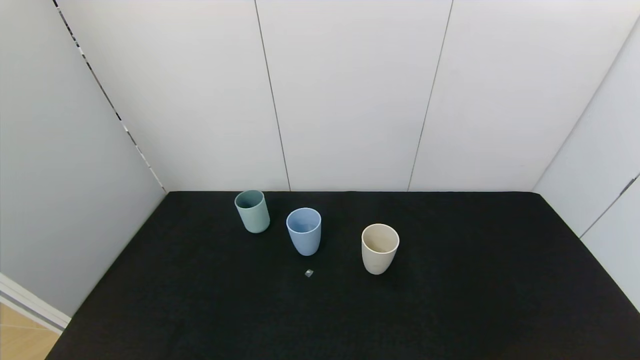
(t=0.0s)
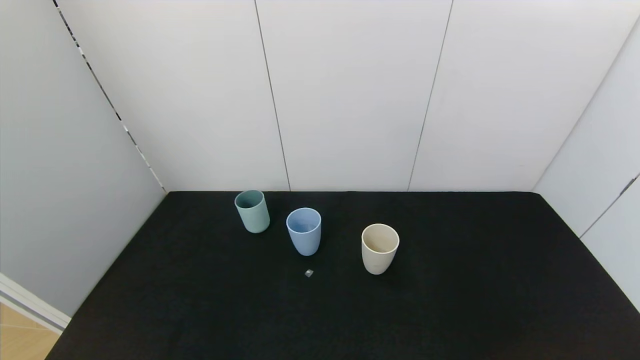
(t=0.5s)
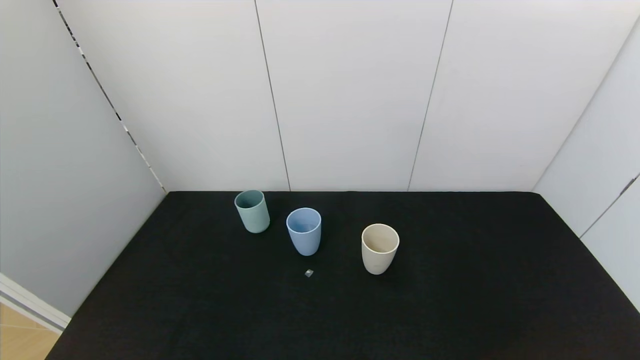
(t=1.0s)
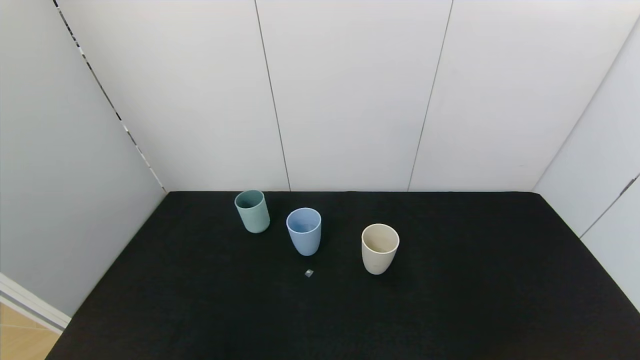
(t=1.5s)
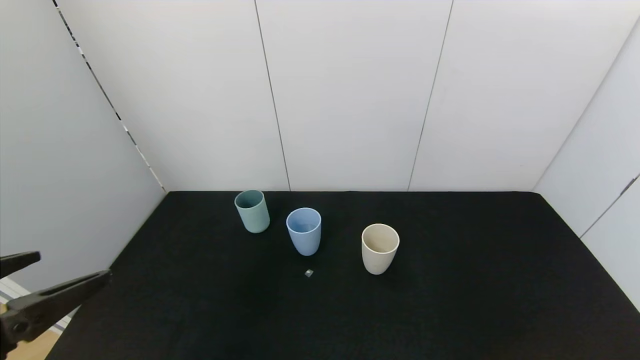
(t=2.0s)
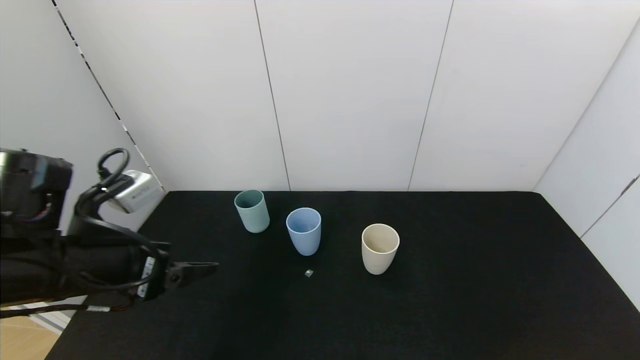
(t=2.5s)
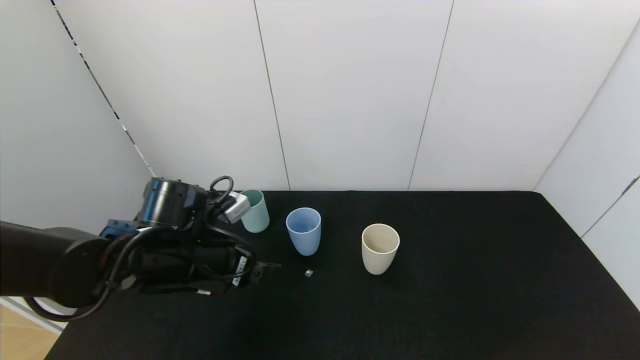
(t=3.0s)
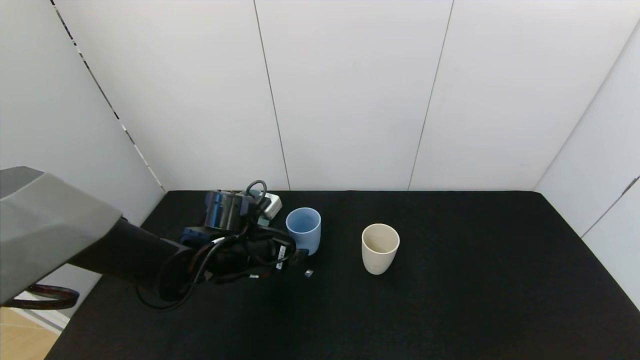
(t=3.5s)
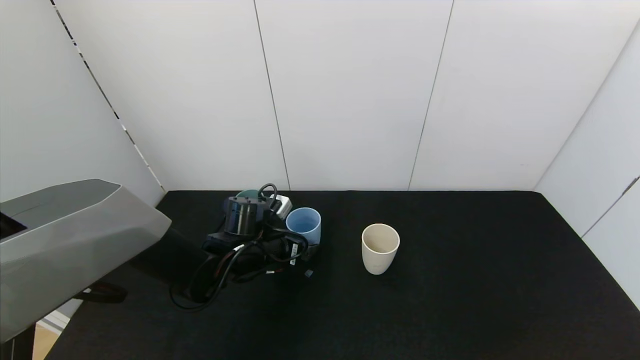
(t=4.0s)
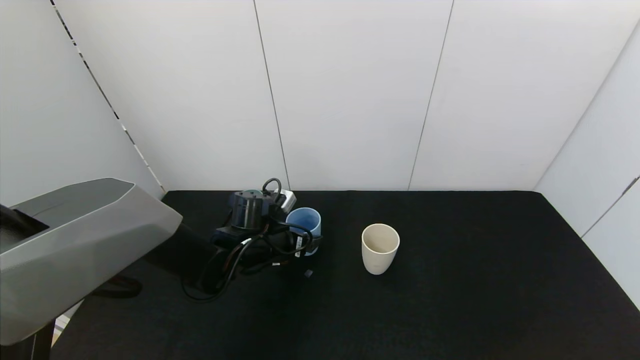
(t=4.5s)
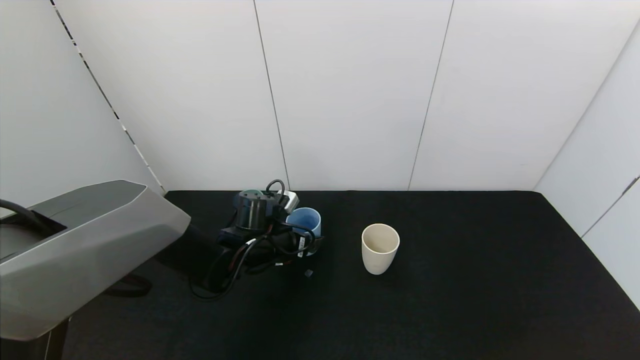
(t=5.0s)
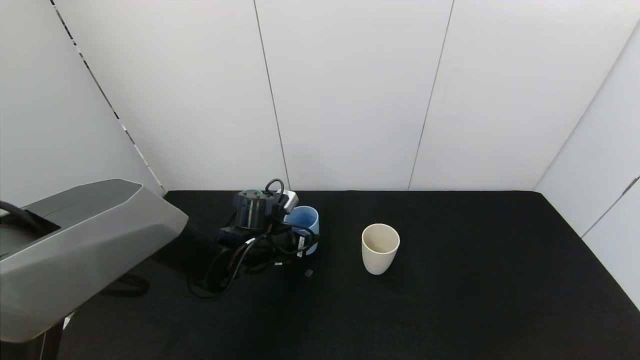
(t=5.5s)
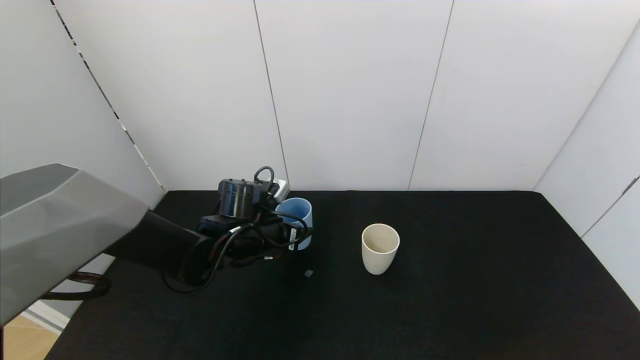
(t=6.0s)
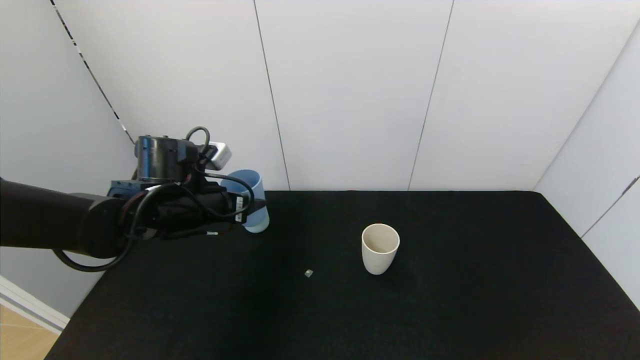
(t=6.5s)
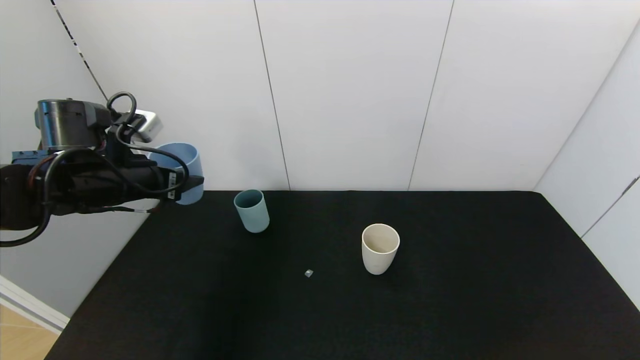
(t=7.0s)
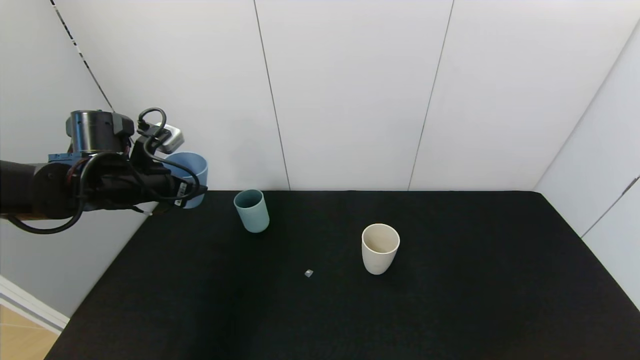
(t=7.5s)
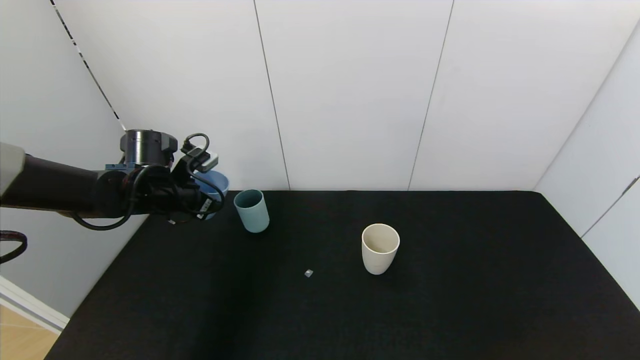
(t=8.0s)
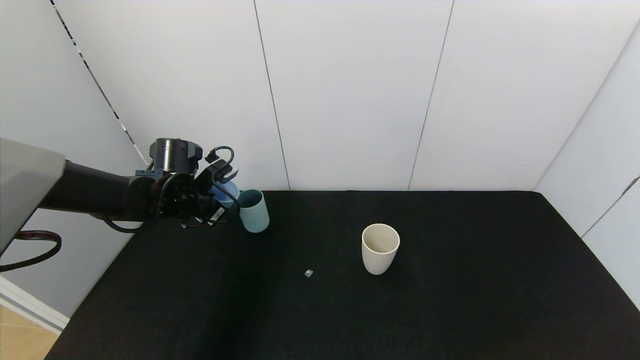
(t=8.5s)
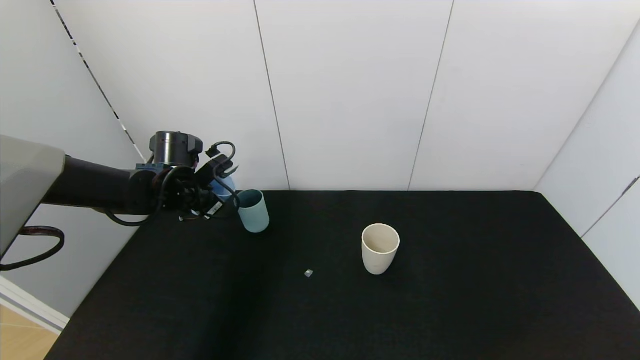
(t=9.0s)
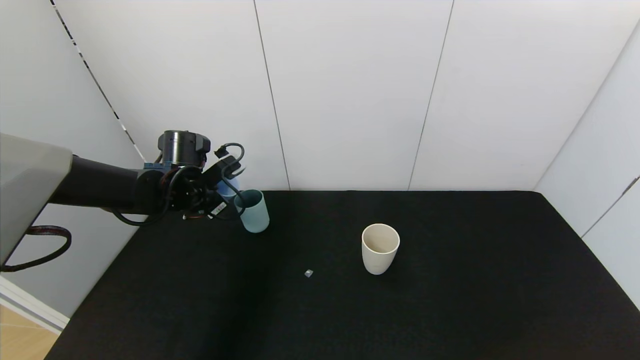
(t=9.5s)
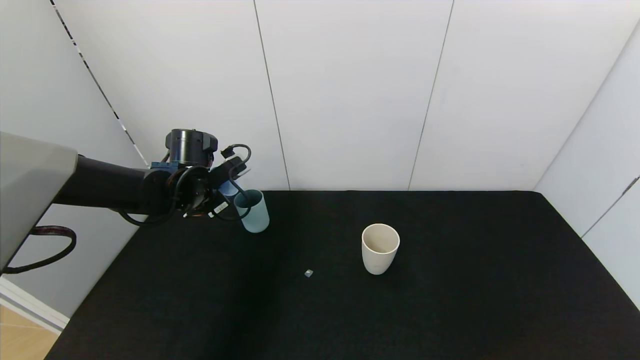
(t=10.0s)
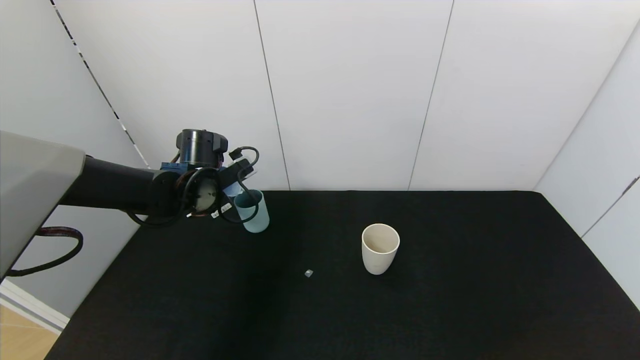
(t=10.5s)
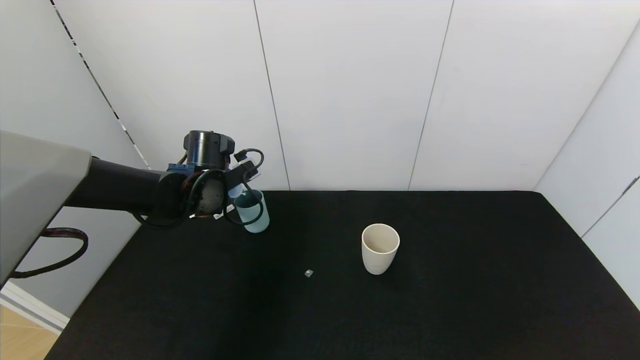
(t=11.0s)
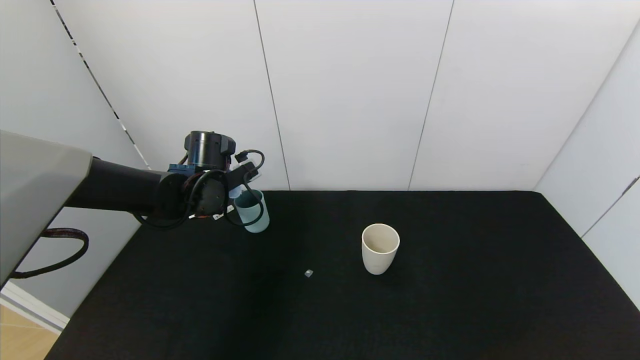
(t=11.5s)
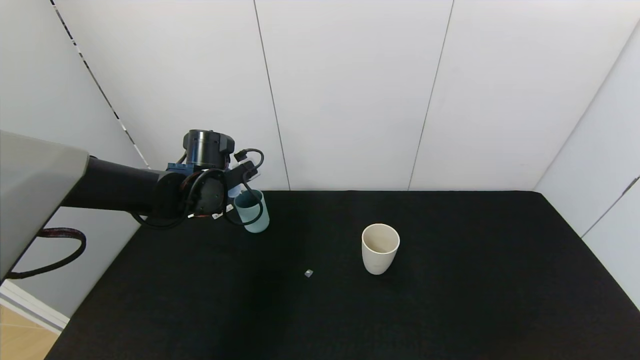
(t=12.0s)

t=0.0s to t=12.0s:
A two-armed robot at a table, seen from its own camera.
Task of the whole recording: use the gripper to pour the water into the other two cups on black table.
Step, t=0.0s to t=5.5s: Pick up the blue plastic cup with left gripper.
t=0.0s to t=2.0s: The left gripper heads upward and forward, covering approximately 20 cm.
t=2.0s to t=4.0s: The left gripper moves forward, downward and to the right, about 35 cm.
t=4.0s to t=6.0s: The left gripper closes.
t=6.0s to t=8.0s: The left gripper travels to the left and upward by some 15 cm.
t=10.0s to t=12.0s: There are only small adjustments of the grippers.

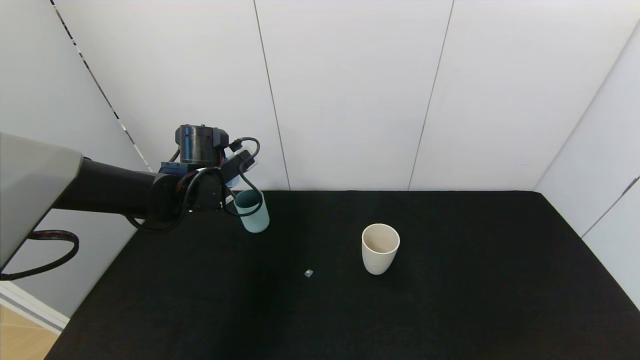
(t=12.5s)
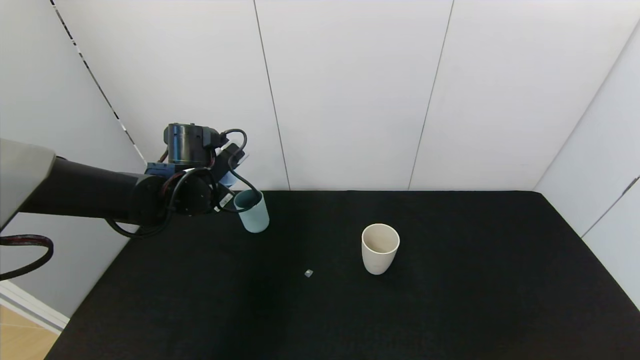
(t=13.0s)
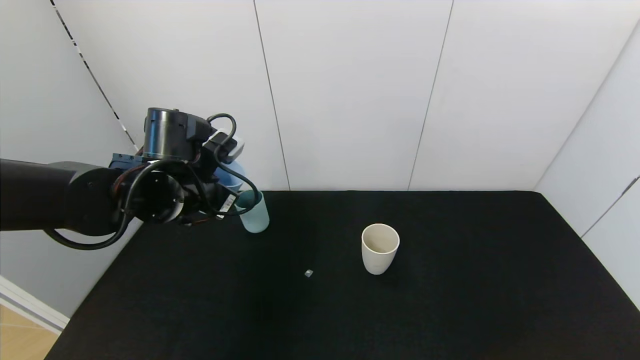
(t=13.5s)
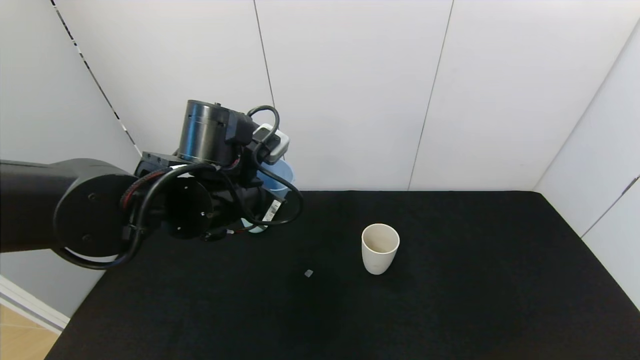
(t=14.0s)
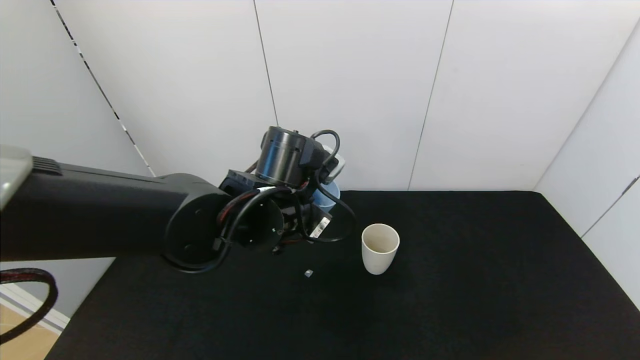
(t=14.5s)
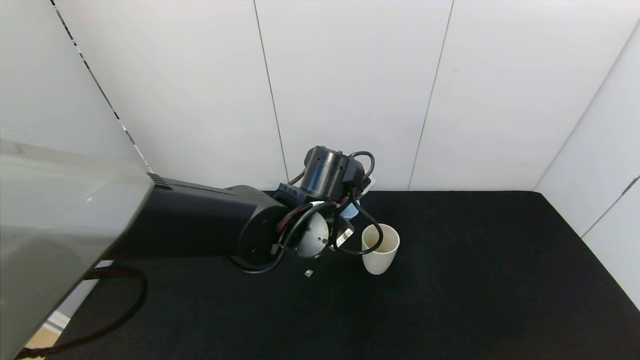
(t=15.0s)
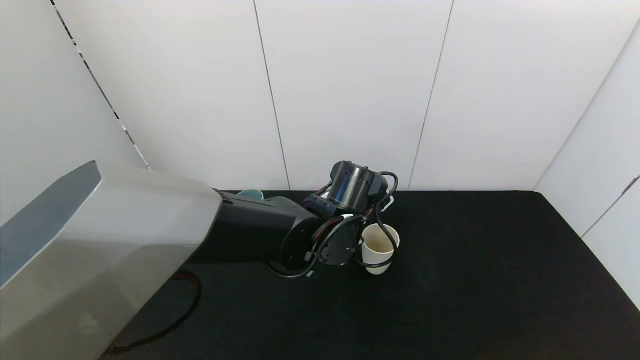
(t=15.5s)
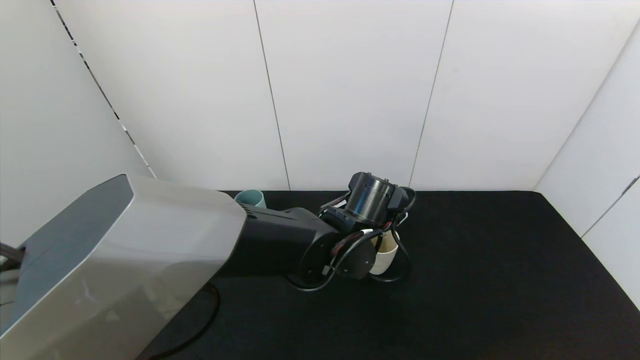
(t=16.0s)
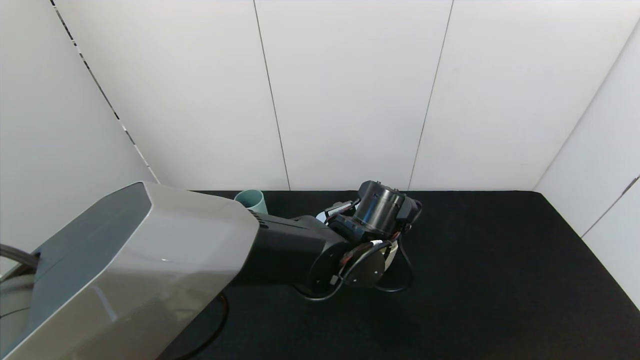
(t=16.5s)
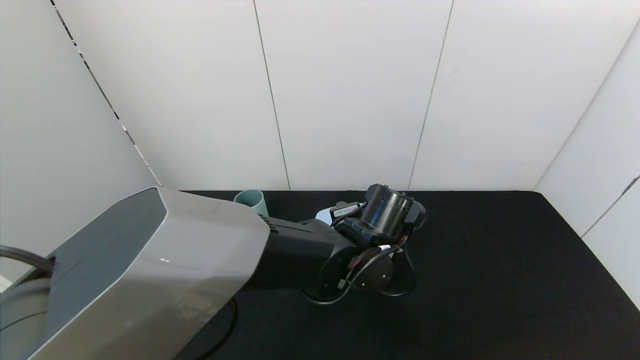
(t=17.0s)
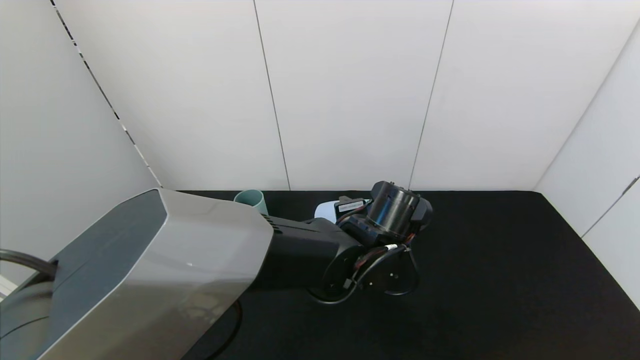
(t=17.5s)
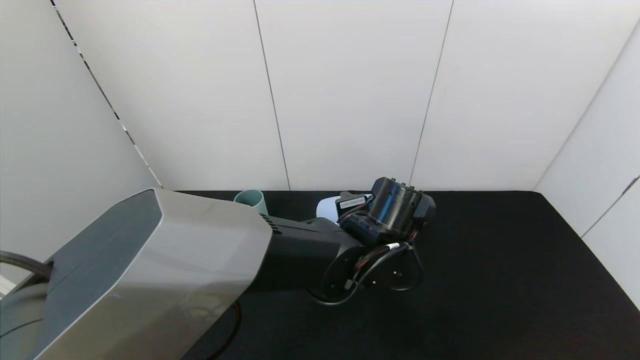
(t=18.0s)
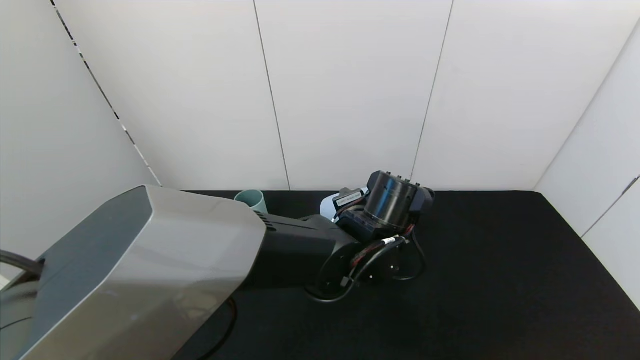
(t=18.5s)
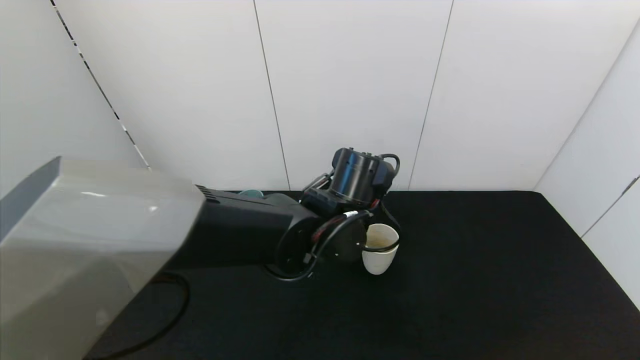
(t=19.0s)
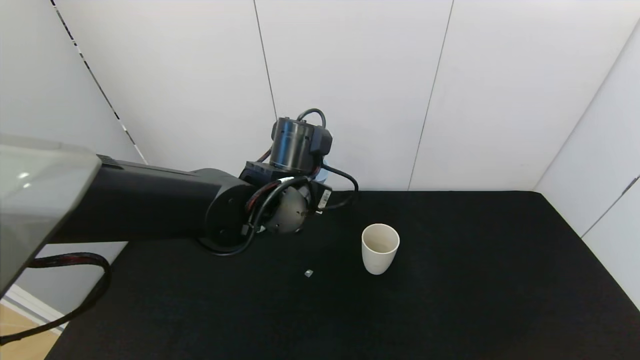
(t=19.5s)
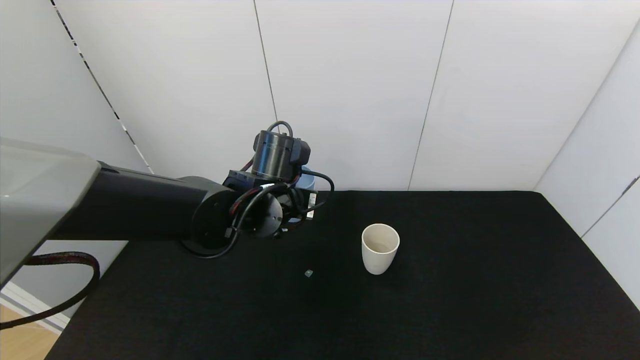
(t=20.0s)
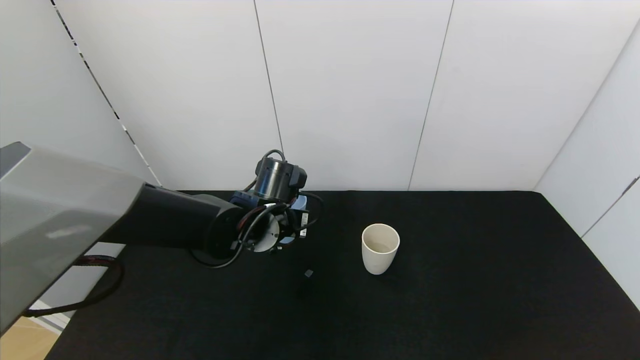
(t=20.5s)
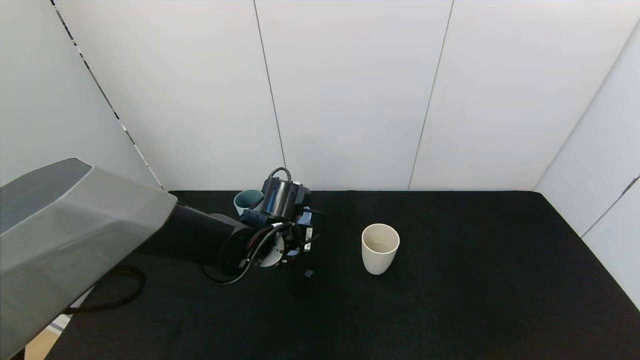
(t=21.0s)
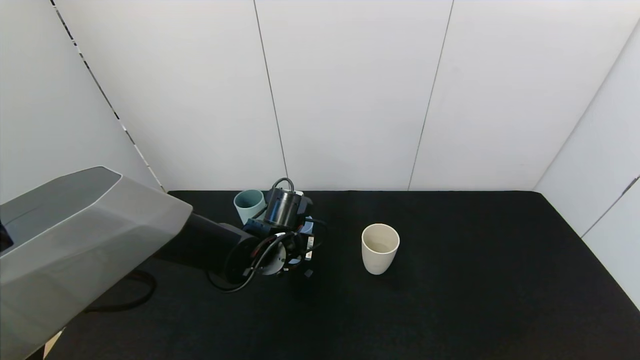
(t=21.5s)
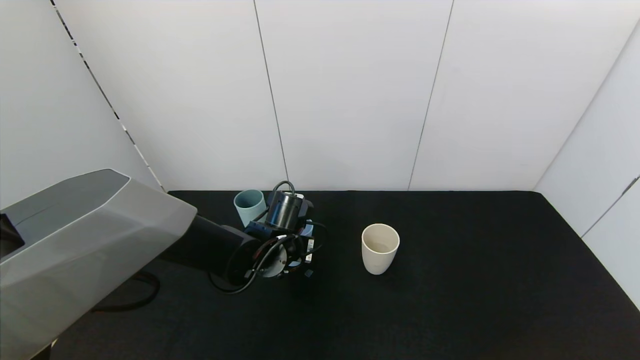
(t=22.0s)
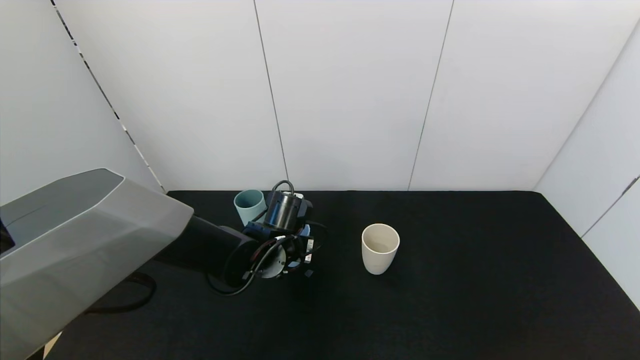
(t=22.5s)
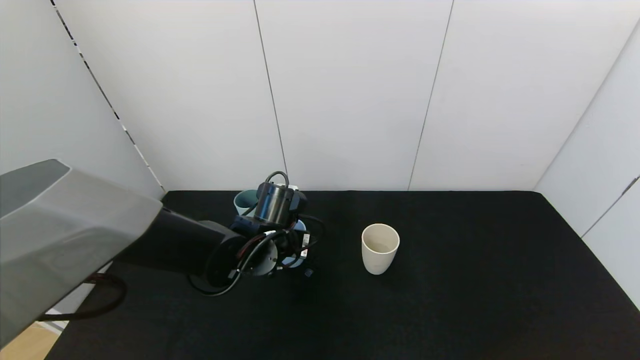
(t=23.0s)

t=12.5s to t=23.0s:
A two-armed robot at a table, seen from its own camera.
Task of the whole recording: use the gripper to pour the water into the other two cups on black table.
Step, t=13.5s to t=19.0s: Pour water into the gray plastic cup with left gripper.
t=12.5s to t=14.5s: The left gripper shifts approximately 20 cm to the right and backward.
t=14.5s to t=16.5s: The left gripper goes approximately 10 cm to the right and downward.
t=16.5s to t=19.0s: The left gripper ends up approximately 5 cm from where it was.
t=19.0s to t=21.0s: The left gripper shifts some 10 cm to the left and downward.
t=21.0s to t=23.0s: The left gripper opens.
